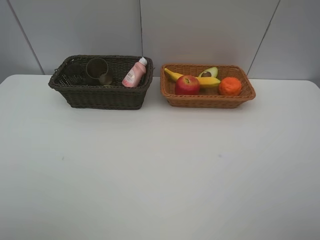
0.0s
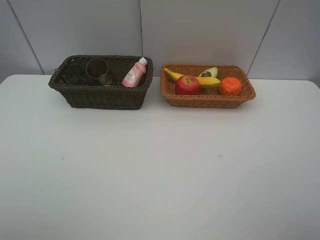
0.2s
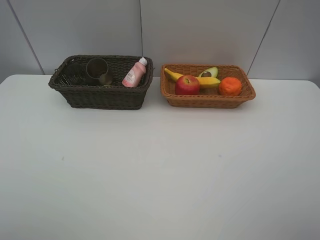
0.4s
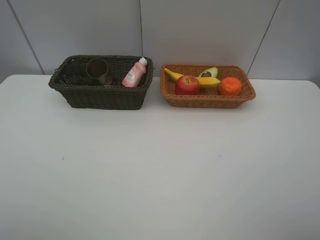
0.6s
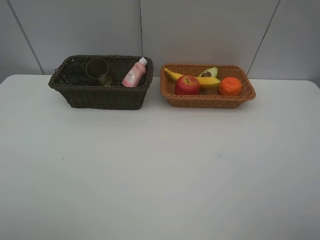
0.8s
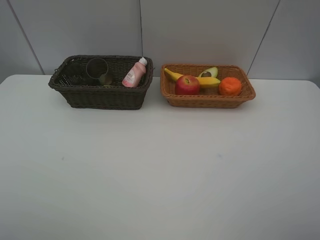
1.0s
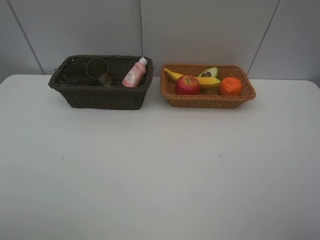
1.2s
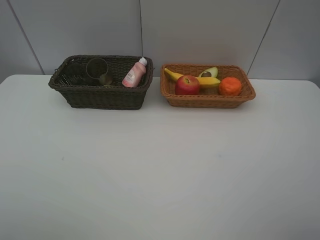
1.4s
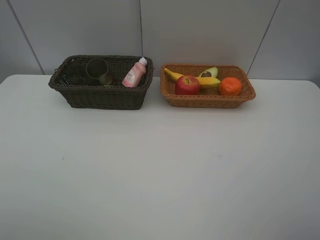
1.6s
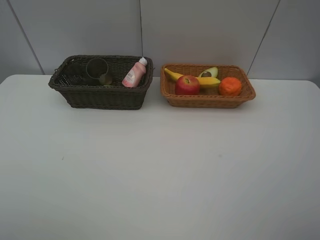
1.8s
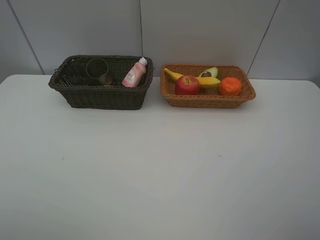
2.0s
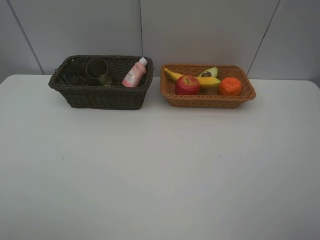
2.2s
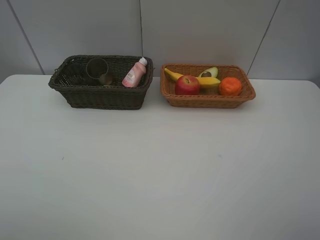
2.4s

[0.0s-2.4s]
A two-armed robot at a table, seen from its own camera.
Task of the whole recording: Place multiple objects separately in different baskets.
1.2s to 2.4s: Both grippers stay put.

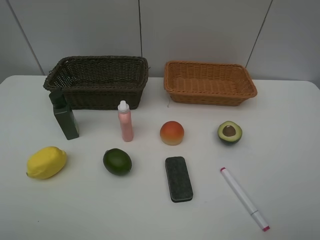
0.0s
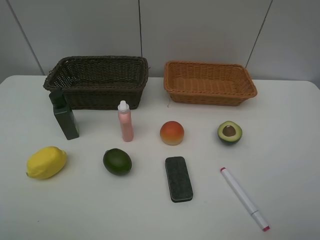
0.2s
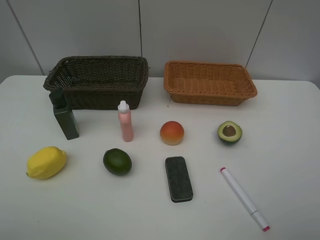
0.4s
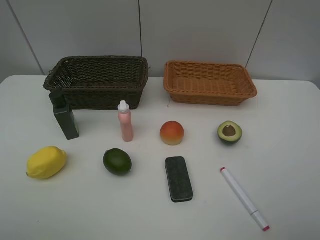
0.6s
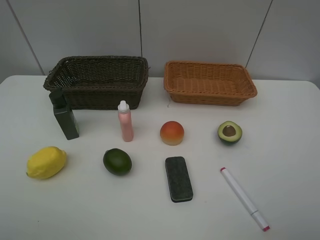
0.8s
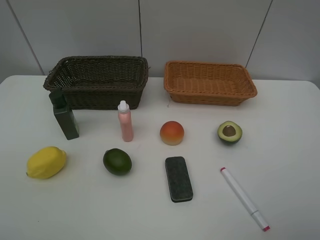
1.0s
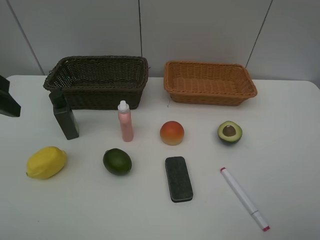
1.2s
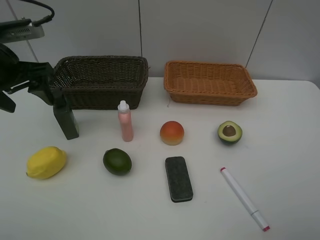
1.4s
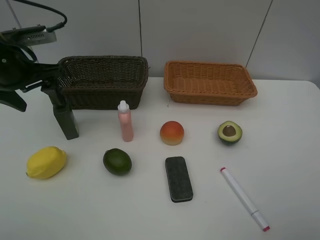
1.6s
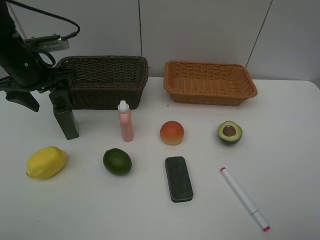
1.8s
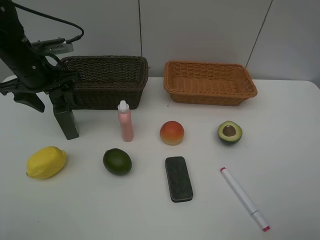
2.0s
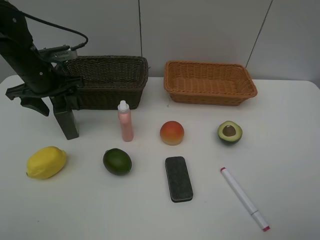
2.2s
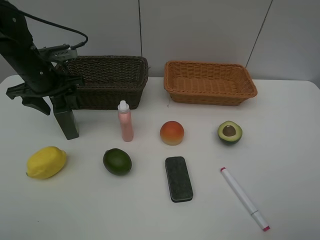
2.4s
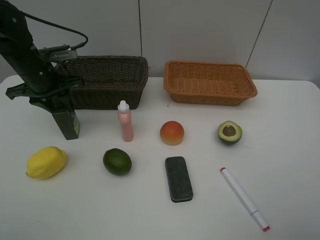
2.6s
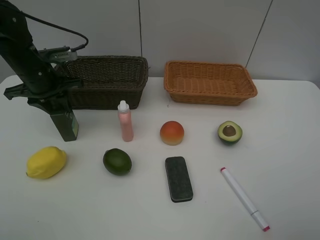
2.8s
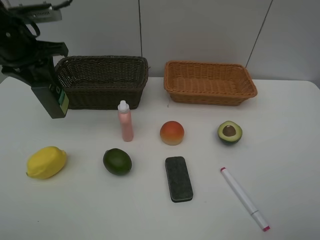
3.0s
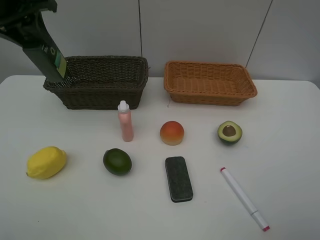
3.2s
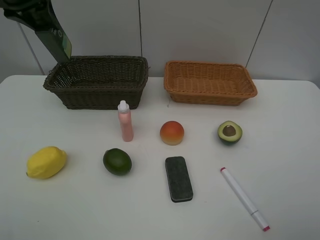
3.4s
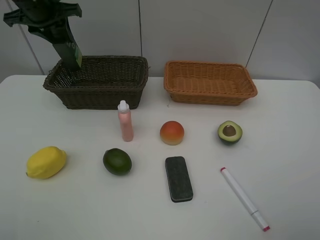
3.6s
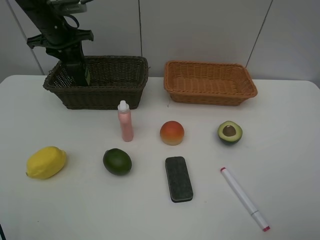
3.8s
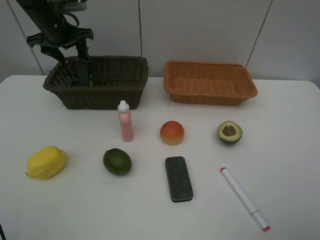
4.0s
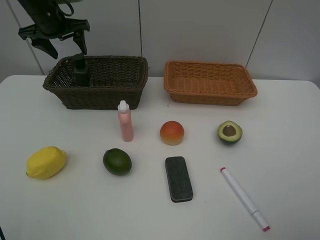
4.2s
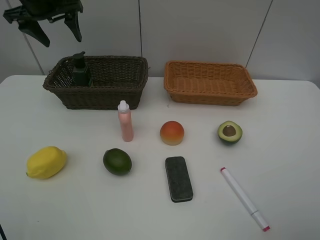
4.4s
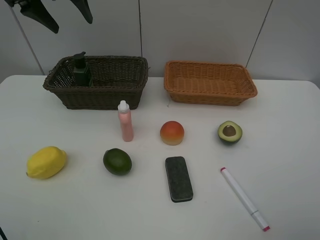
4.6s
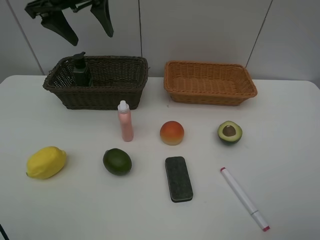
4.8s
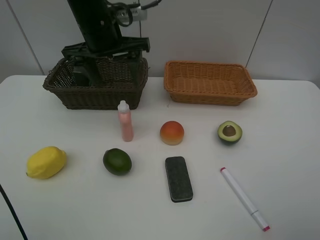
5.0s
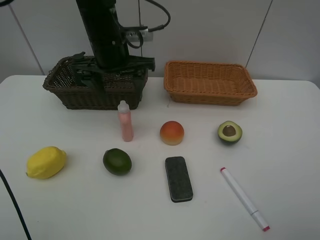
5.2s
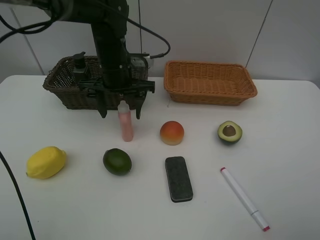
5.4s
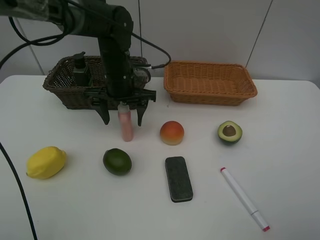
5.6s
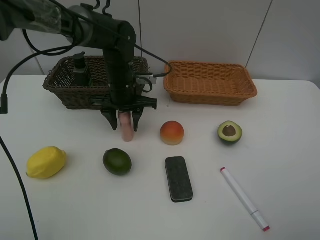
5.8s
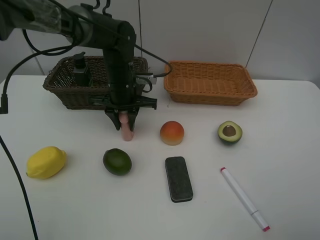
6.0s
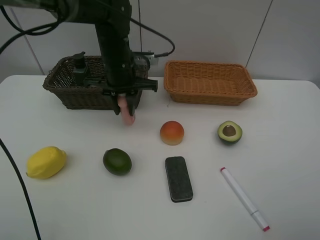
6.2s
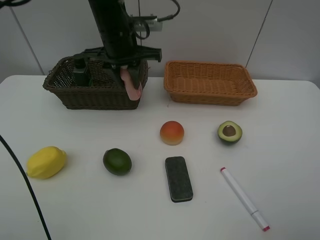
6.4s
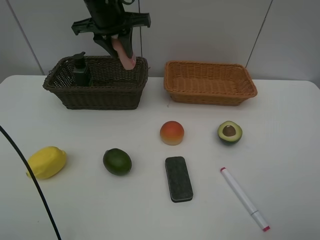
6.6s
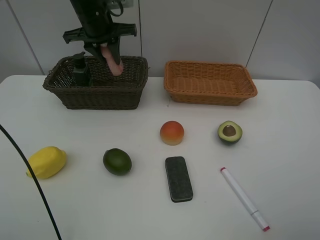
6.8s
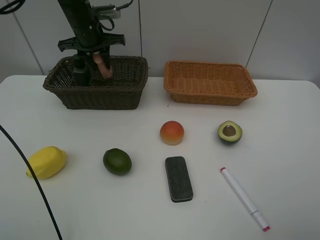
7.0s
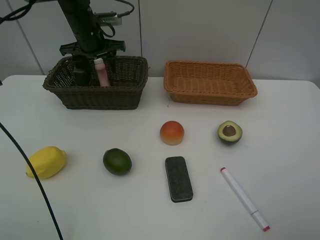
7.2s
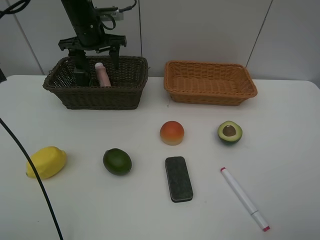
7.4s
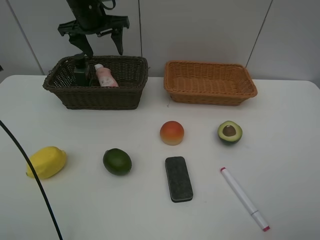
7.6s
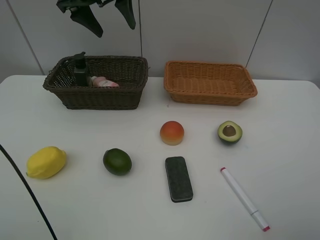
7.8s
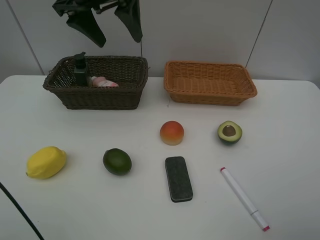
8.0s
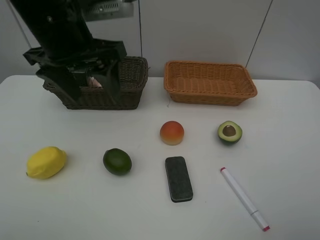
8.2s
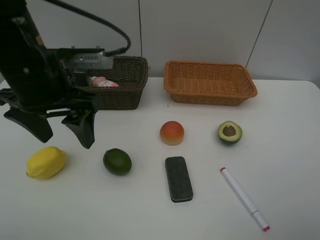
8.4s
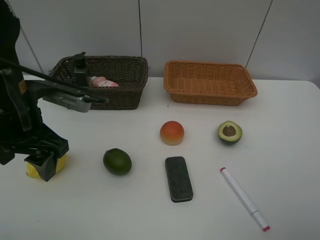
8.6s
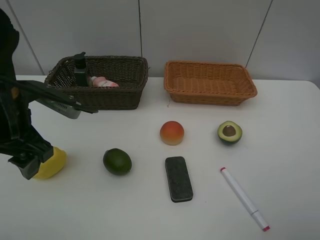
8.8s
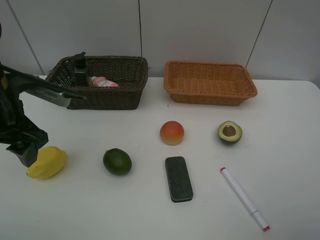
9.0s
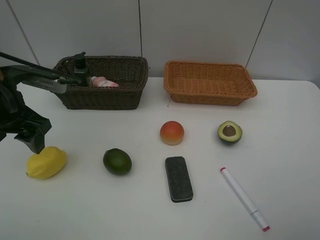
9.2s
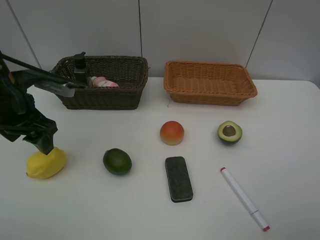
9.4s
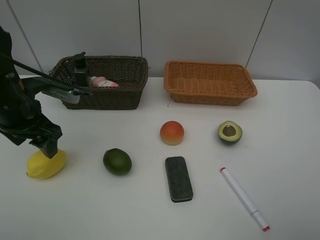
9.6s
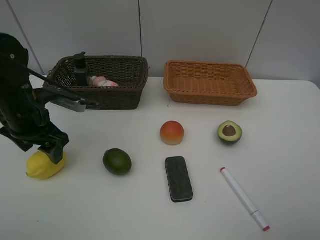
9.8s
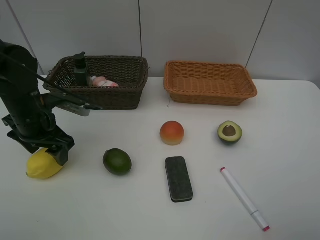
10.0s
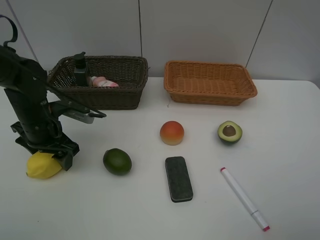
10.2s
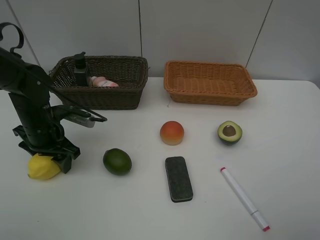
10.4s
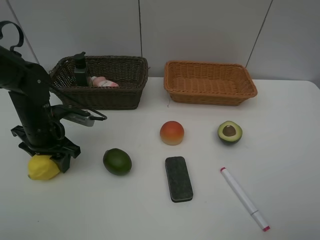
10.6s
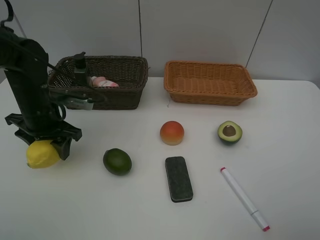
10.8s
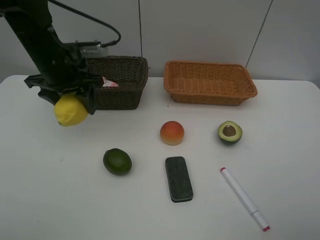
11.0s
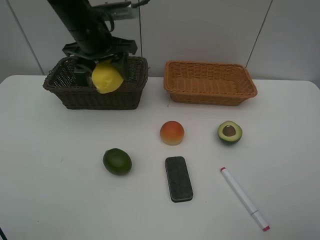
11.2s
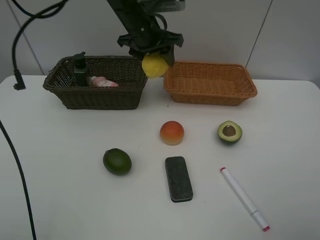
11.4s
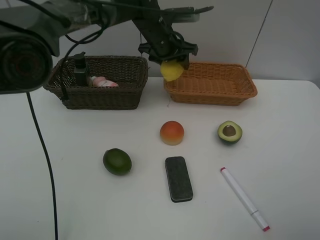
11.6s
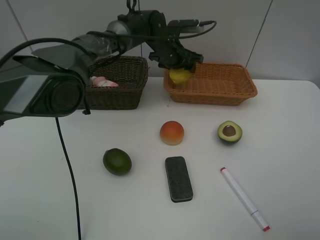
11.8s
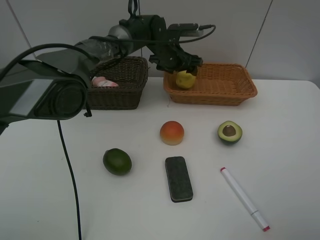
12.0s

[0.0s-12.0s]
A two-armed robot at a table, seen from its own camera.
Task of the whole recording: Place multiple objects separately in different baskets.
Step, 0.0s to 2.8s: Pick up the hard facial cleanser with left gripper.
Step, 3.0s to 4.2s: Place the hard facial cleanser in the dark basket with left gripper.
Step, 4.4s to 6.2s: Pick up the laundry detergent with left gripper.
Step, 6.4s to 7.4s: Place the laundry detergent in the dark basket with left gripper.
Step, 7.6s to 10.6s: Pick up the lemon with left gripper.
0.0s to 1.6s: The left gripper heads forward, covering about 30 cm.
1.6s to 3.0s: The left gripper changes place by roughly 5 cm, and closes its fingers.
3.0s to 4.4s: The left gripper goes some 10 cm forward, and opens up.
4.4s to 6.0s: The left gripper moves downward, to the right and backward, some 25 cm, and closes.
6.0s to 7.6s: The left gripper swings up and down, about 15 cm each way, with 2 reversals, and opens up.
7.6s to 9.0s: The left gripper moves backward, some 20 cm.
9.0s to 10.4s: The left gripper travels downward and forward by approximately 15 cm.
10.4s to 12.0s: The left gripper heads to the right and forward, covering some 35 cm.

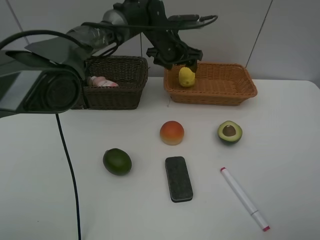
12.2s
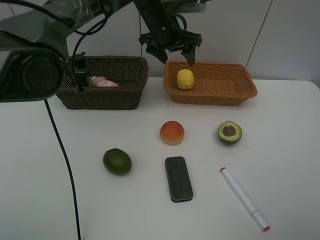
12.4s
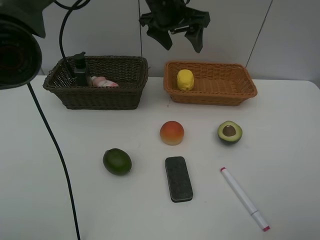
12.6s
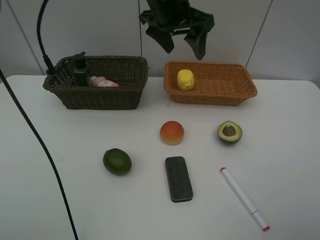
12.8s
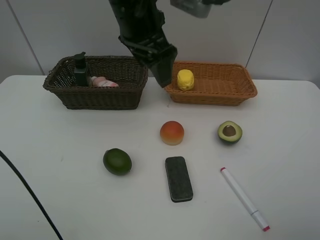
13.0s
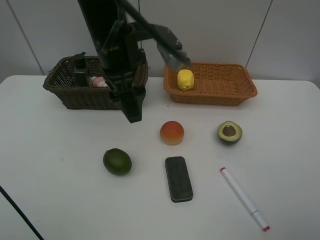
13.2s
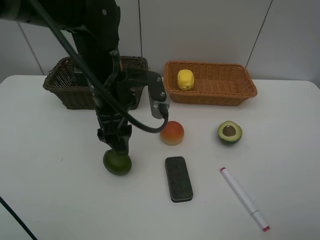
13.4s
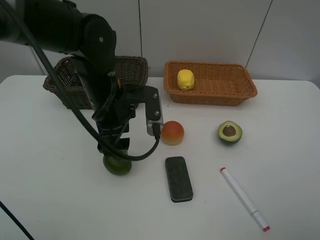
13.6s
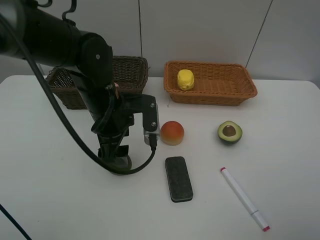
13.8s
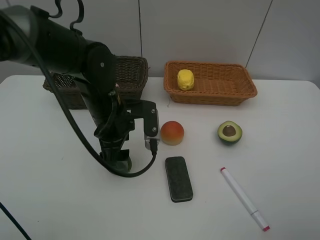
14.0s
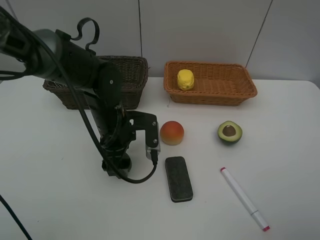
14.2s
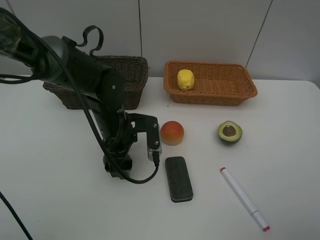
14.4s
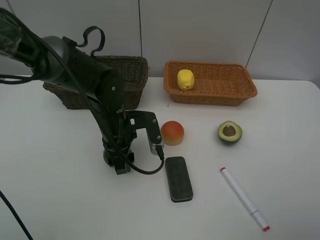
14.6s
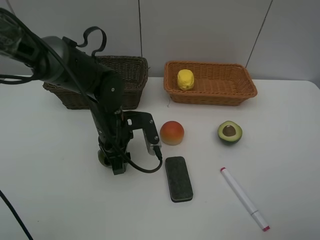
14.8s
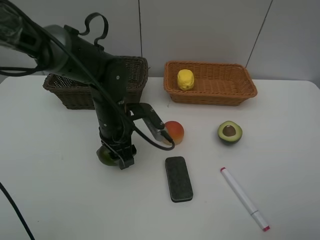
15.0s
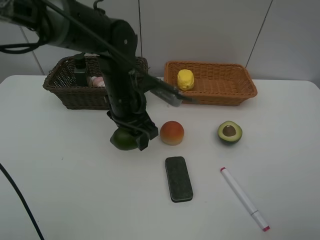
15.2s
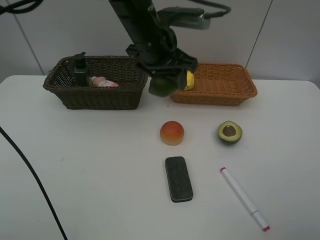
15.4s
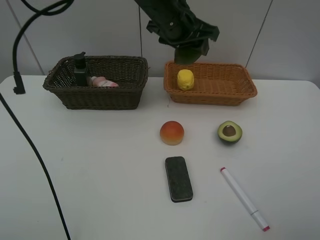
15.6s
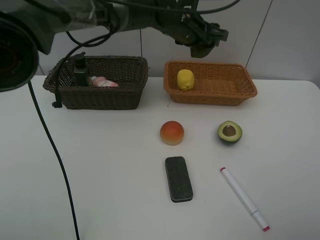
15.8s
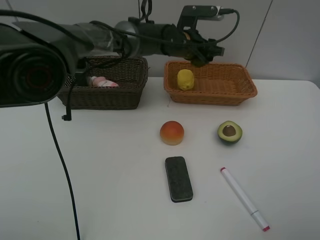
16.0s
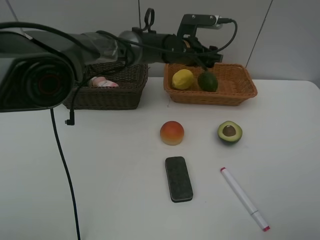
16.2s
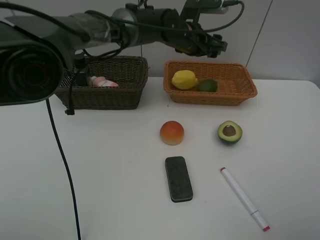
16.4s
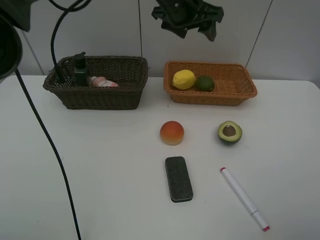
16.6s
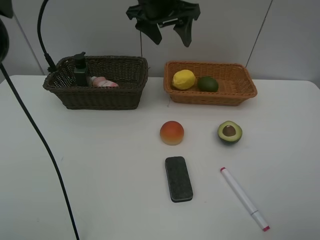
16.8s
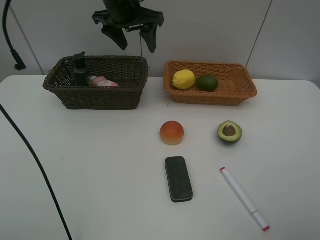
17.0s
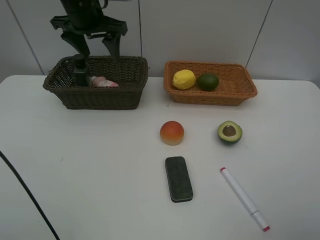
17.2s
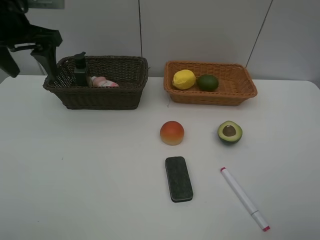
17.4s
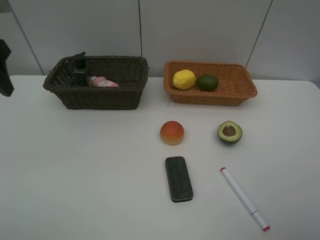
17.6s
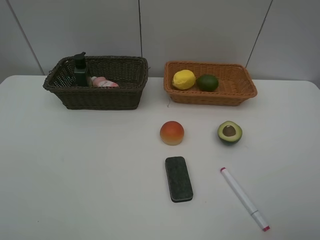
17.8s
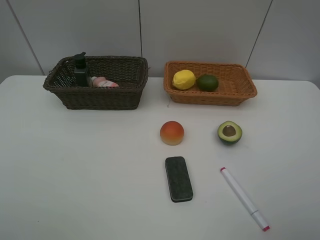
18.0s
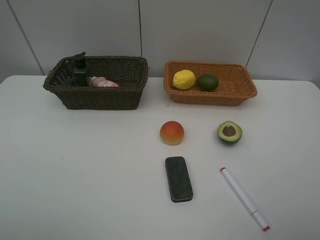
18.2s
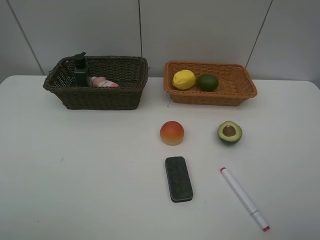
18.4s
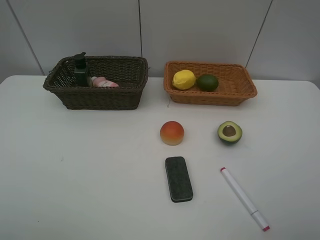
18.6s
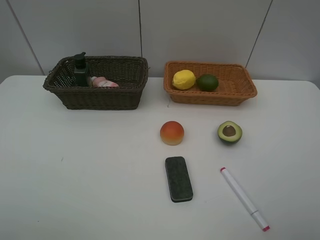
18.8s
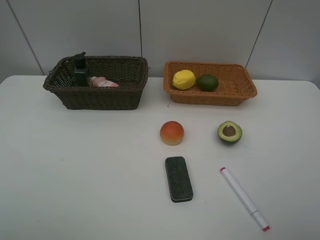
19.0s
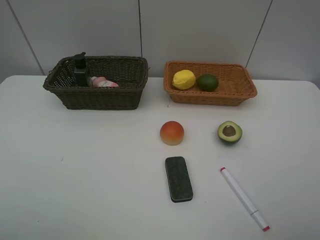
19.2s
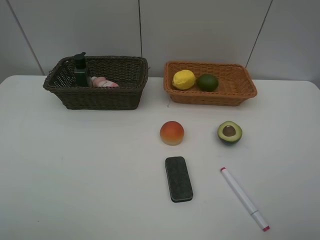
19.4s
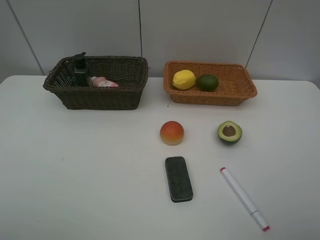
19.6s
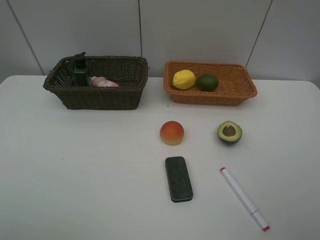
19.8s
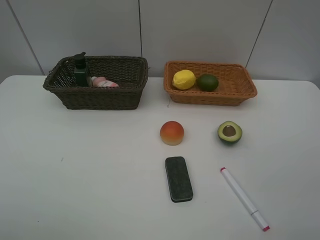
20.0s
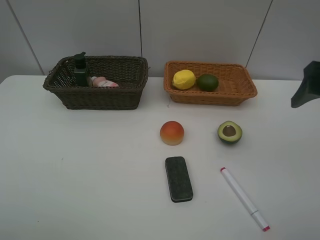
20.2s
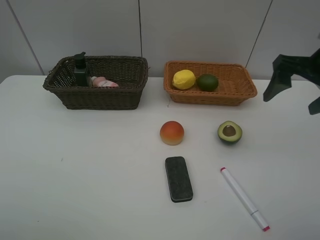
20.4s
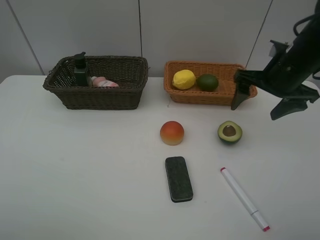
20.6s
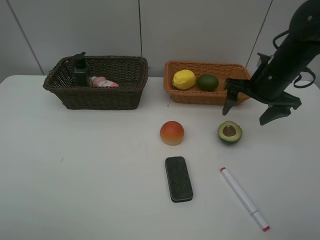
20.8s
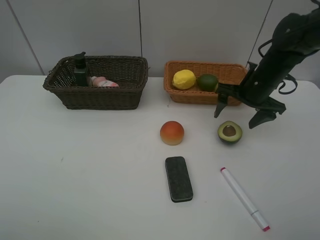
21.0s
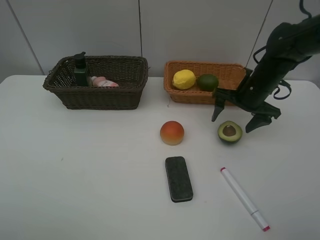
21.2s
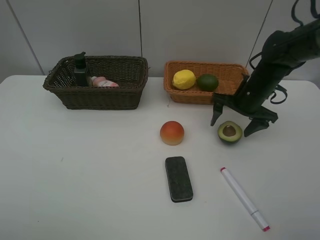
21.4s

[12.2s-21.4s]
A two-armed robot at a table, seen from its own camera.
Task of the whole recording: Place multiple objects separately in different baskets.
Step, 12.4s to 15.0s: Pick up the lime with left gripper.
Step, 15.2s to 16.2s: Place the lime in the light basket with left gripper.
12.2s to 13.8s: The left gripper travels backward and to the left by approximately 25 cm.
13.8s to 15.2s: The left gripper goes downward and returns, roughly 5 cm each way, and closes.
15.2s to 16.8s: The left gripper moves upward and forward, about 15 cm.
16.8s to 18.4s: The left gripper is displaced backward and to the left by about 50 cm.
19.8s to 21.4s: The right gripper moves forward and downward, some 30 cm.
